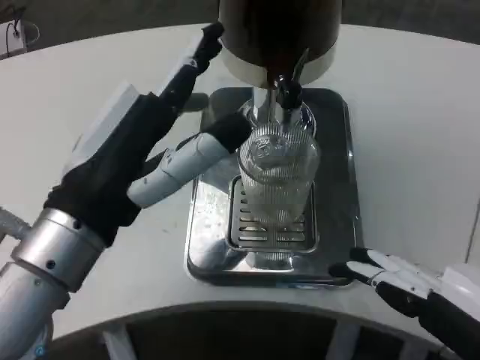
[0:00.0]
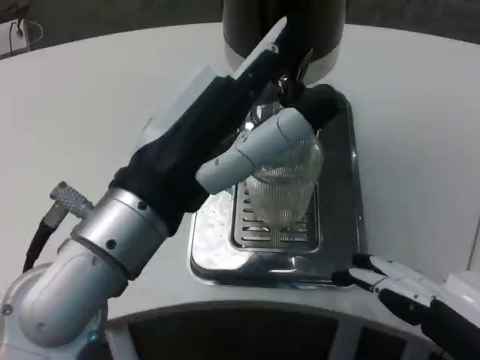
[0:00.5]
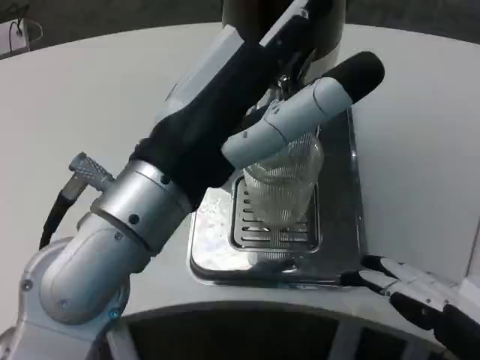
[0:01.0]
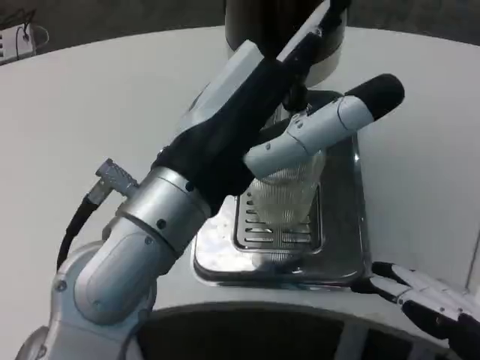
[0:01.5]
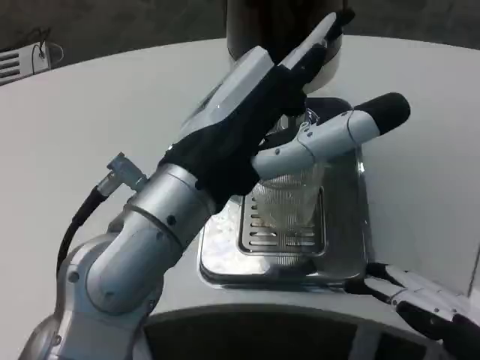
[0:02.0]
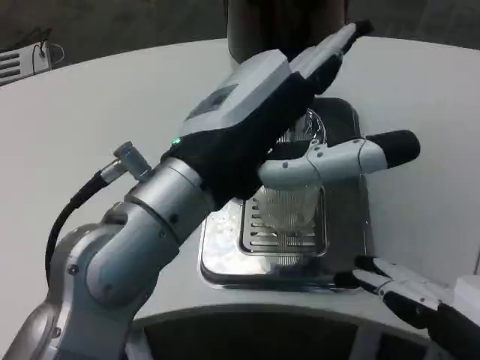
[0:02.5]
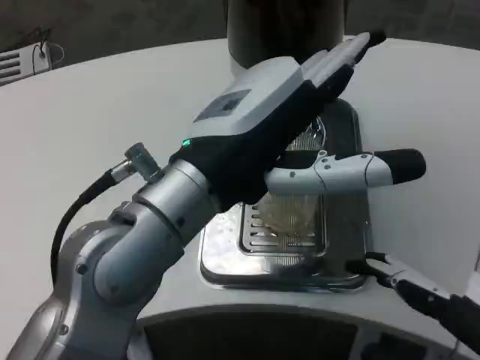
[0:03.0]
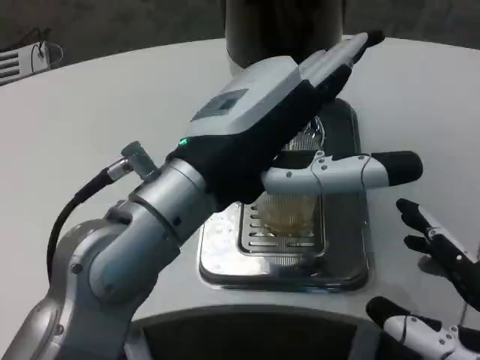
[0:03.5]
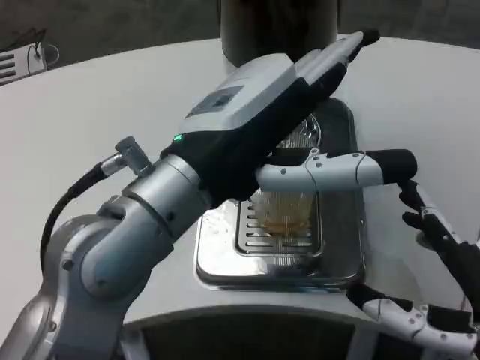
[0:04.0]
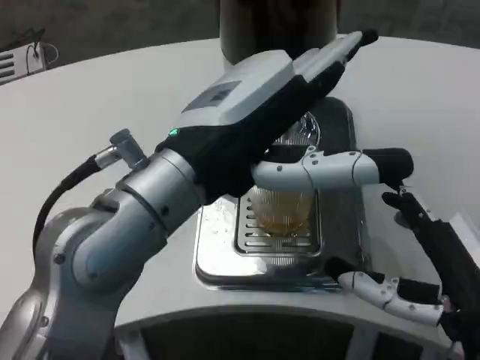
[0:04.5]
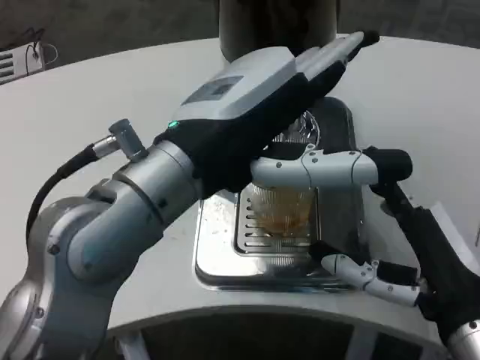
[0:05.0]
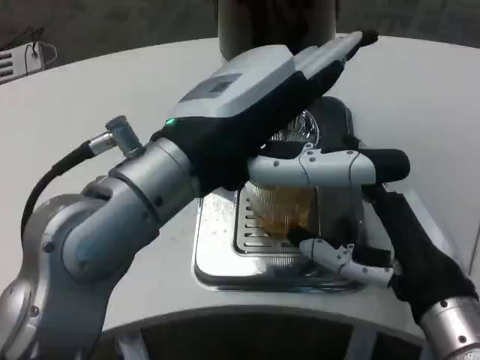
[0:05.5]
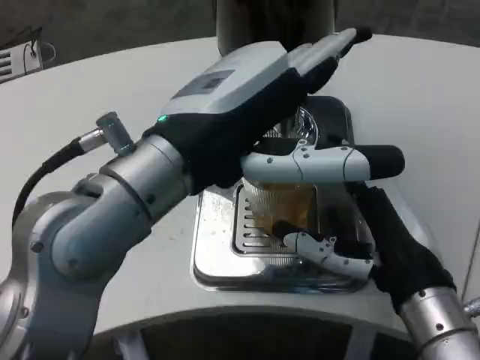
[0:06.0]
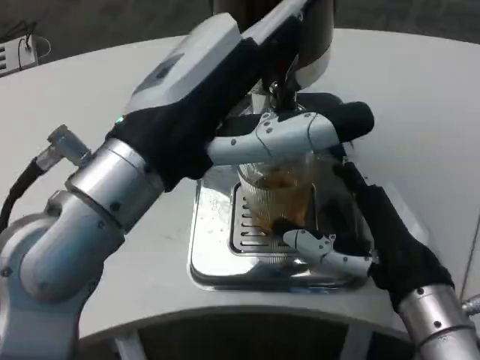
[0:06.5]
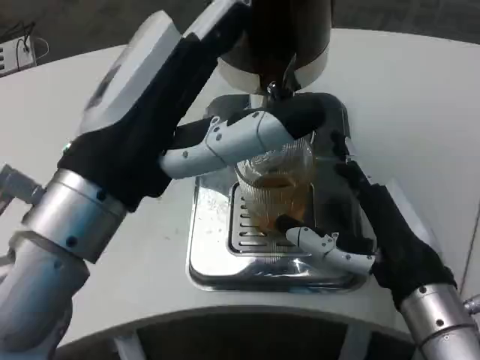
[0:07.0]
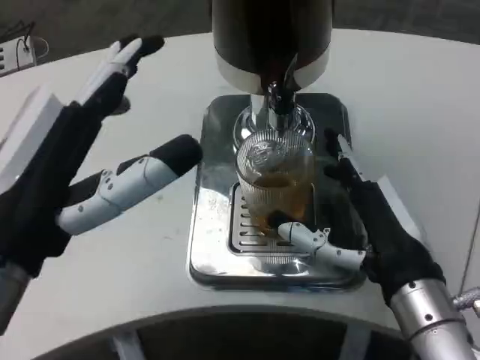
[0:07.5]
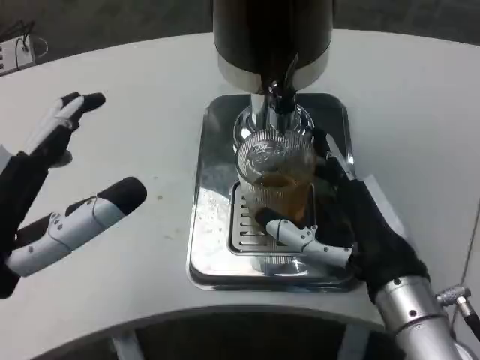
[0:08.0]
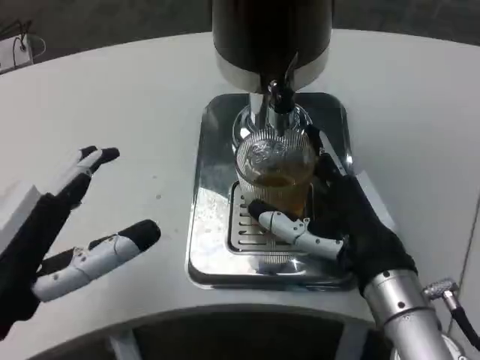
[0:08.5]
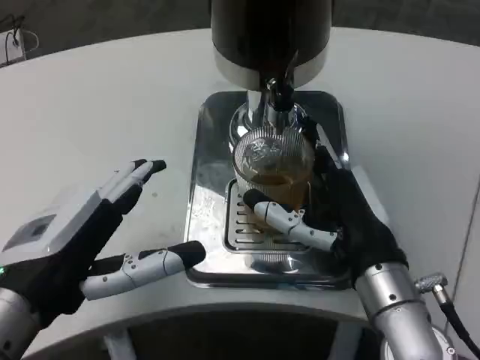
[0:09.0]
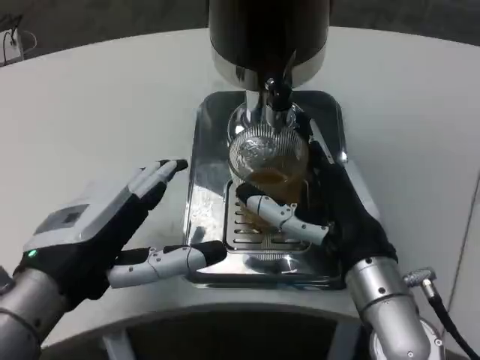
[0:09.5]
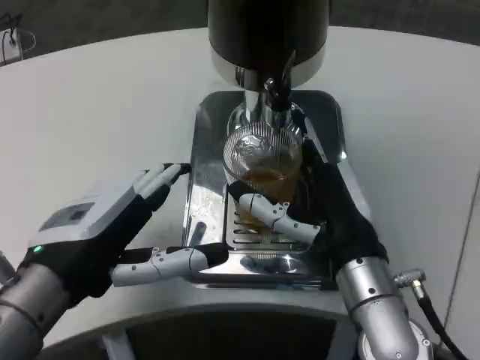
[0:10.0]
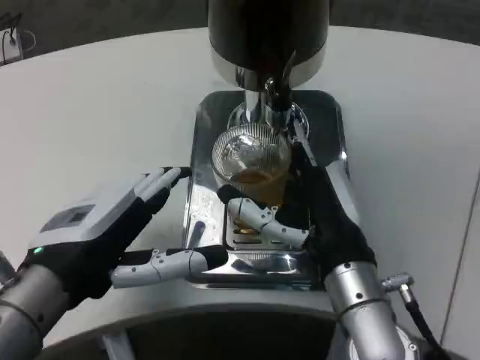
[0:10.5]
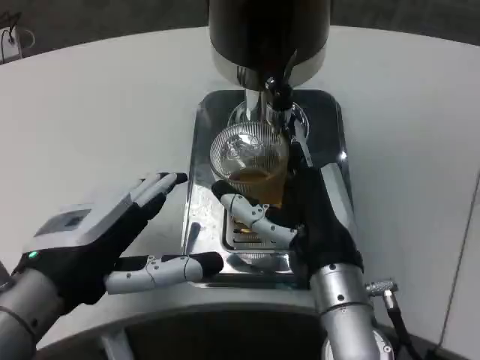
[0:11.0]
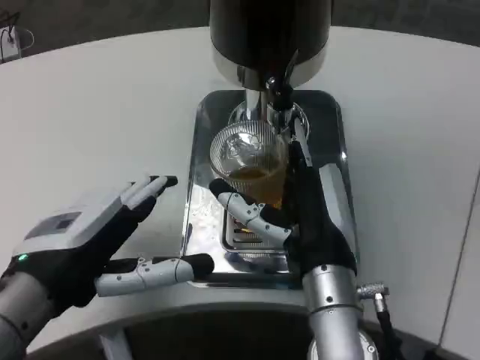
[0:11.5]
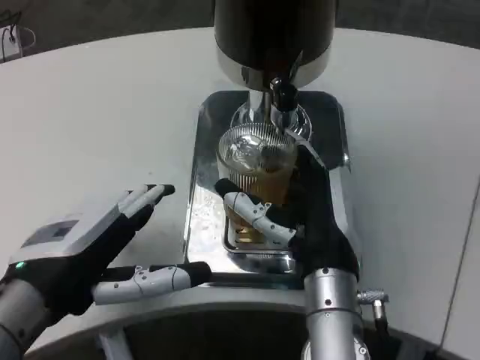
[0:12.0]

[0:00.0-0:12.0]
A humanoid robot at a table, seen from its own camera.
Task of the whole recording: Grasp the cup under the faucet to collect the drink, then remove the cup.
0:00.0 to 0:02.0: The left hand shifts some 5 cm to the right.
0:02.0 to 0:04.0: The right hand shifts some 10 cm forward and downward.
0:04.0 to 0:06.0: The right hand goes approximately 10 cm forward and to the left.
0:06.0 to 0:08.0: The left hand travels to the left, downward and backward by some 15 cm.
0:08.0 to 0:10.0: The left hand shifts about 5 cm forward.

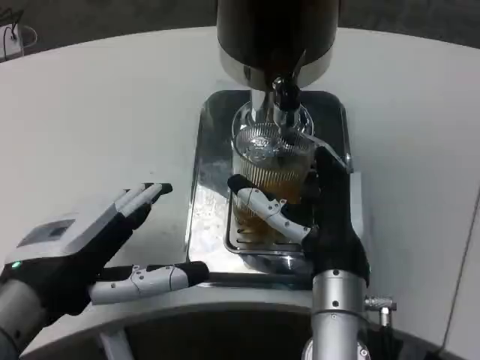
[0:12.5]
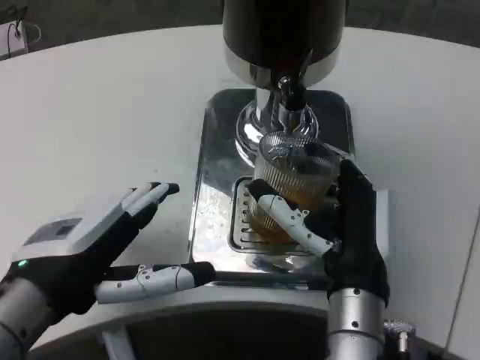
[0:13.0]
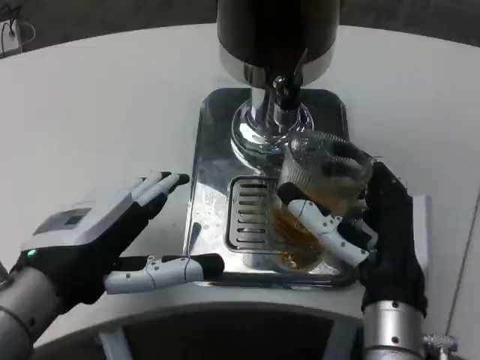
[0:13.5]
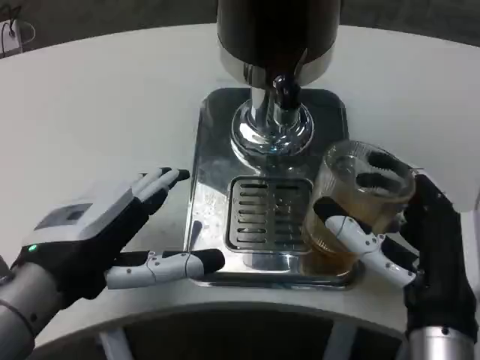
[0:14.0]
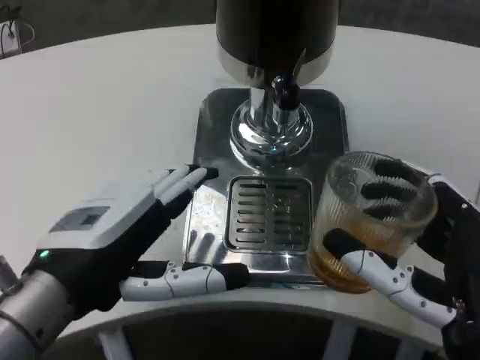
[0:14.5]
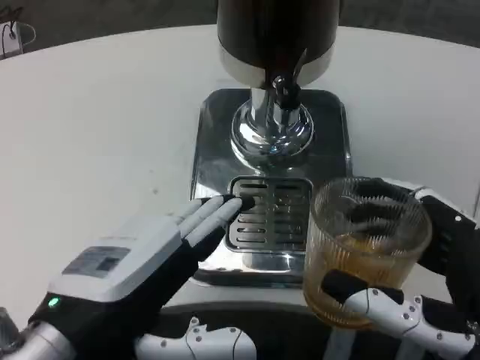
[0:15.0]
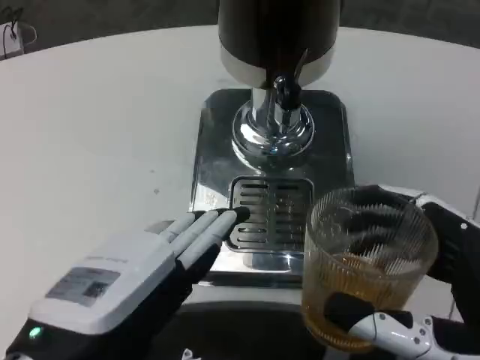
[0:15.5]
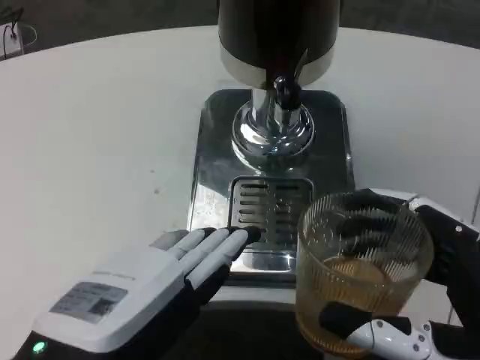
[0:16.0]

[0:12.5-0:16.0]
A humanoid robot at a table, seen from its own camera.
Task of the whole recording: Grasp the cup under the faucet to collect the drink, then remove the cup.
0:12.5 to 0:14.5: The right hand is displaced backward and to the right by approximately 15 cm.
0:14.5 to 0:16.0: The left hand goes some 10 cm backward, while the right hand ends up some 5 cm from where it was.

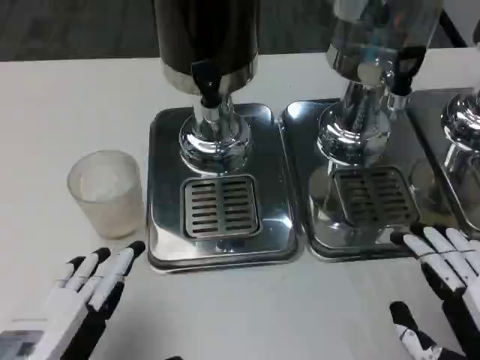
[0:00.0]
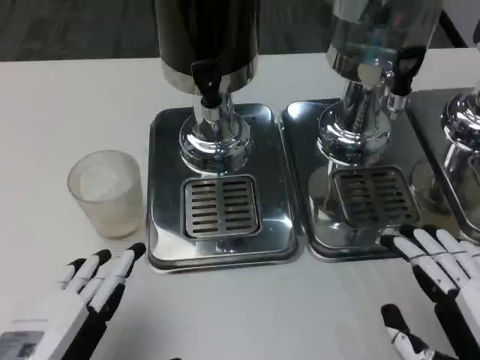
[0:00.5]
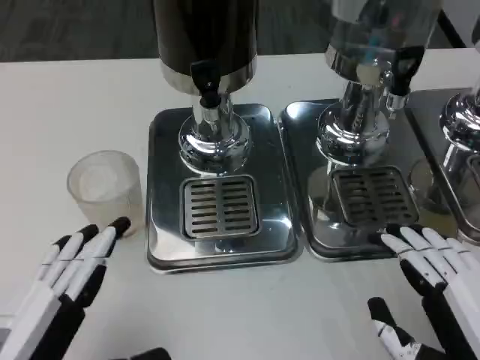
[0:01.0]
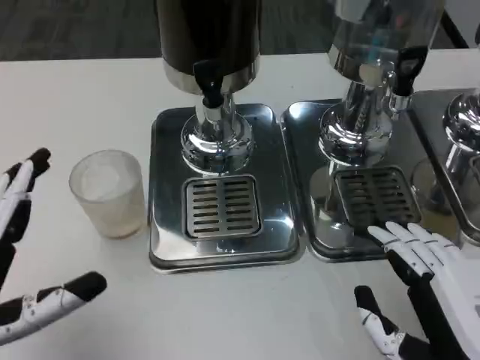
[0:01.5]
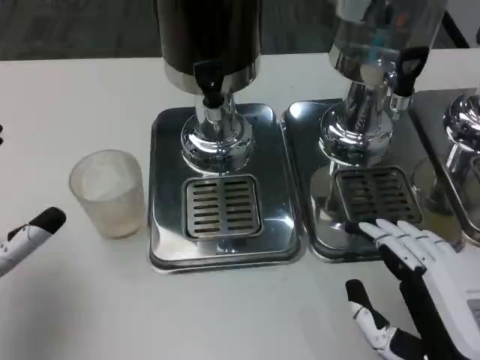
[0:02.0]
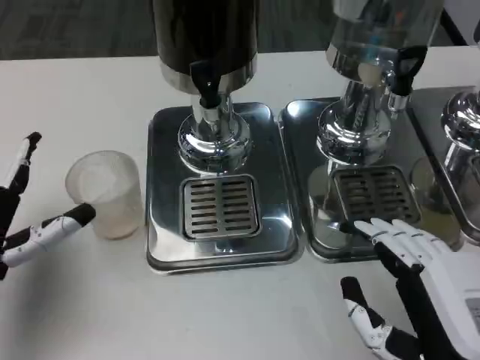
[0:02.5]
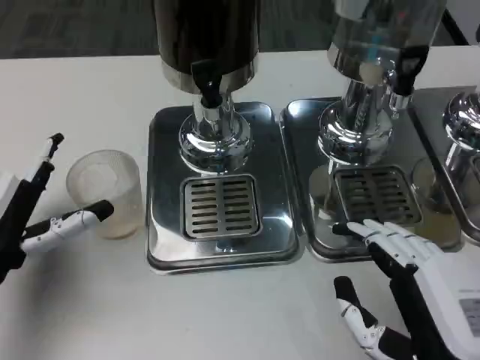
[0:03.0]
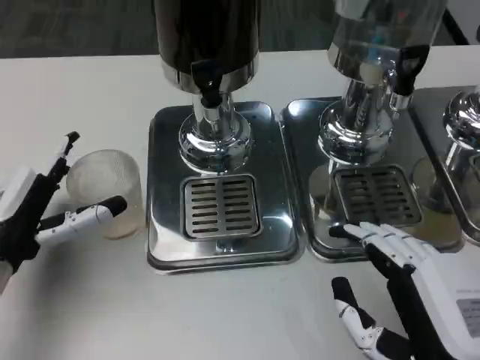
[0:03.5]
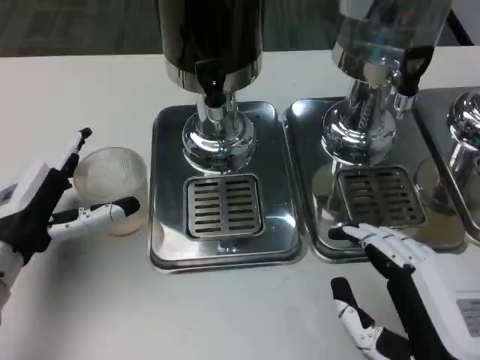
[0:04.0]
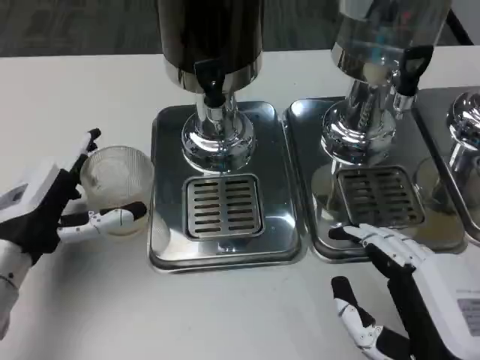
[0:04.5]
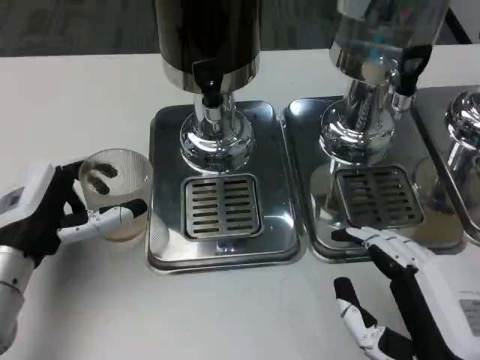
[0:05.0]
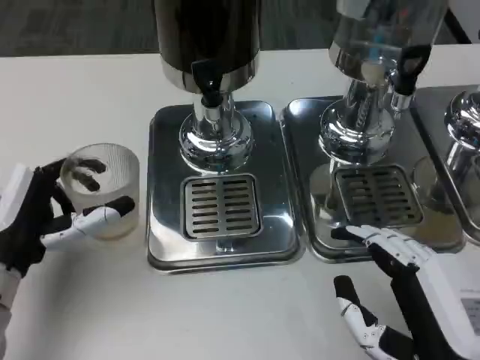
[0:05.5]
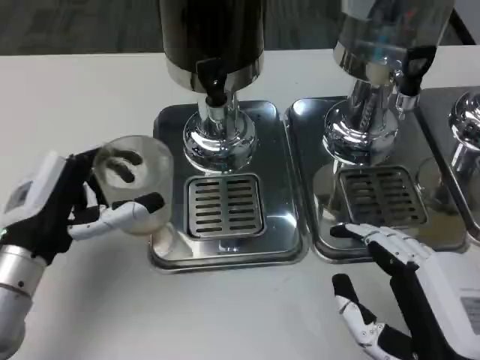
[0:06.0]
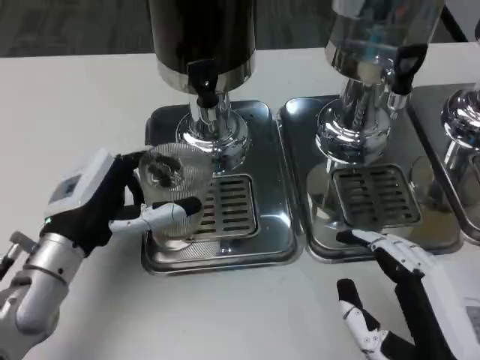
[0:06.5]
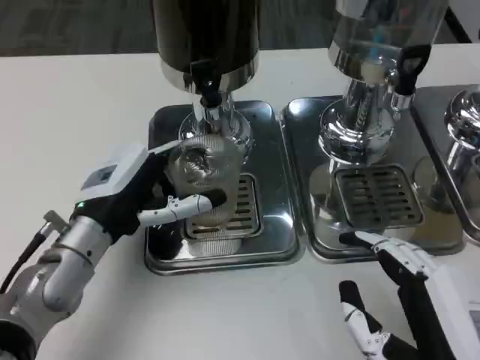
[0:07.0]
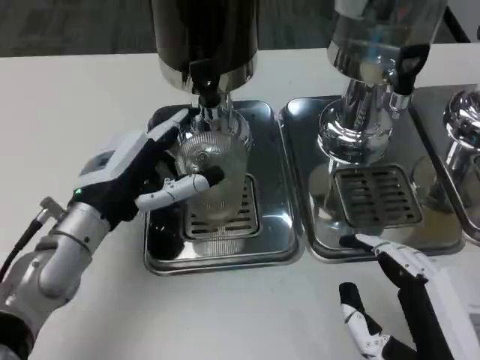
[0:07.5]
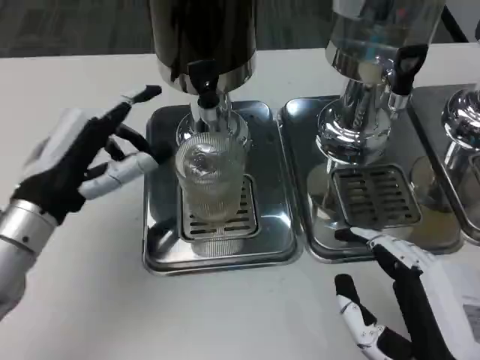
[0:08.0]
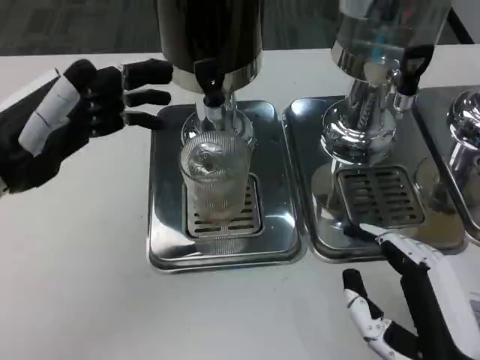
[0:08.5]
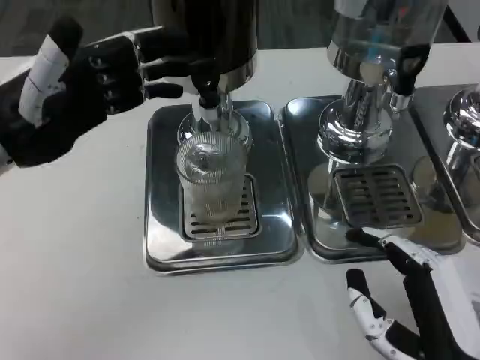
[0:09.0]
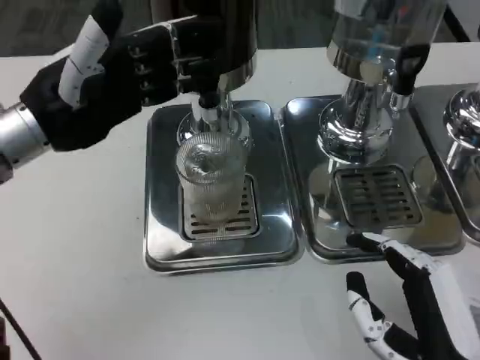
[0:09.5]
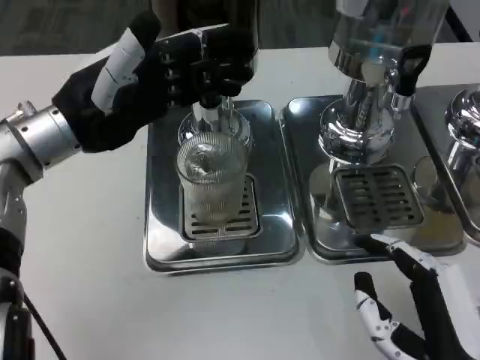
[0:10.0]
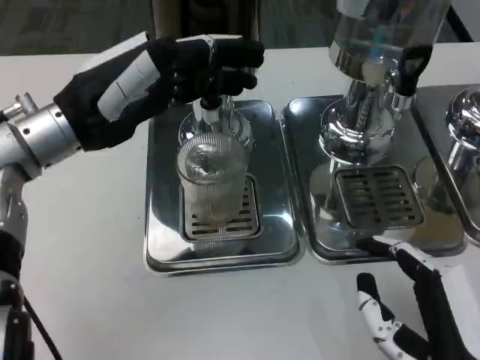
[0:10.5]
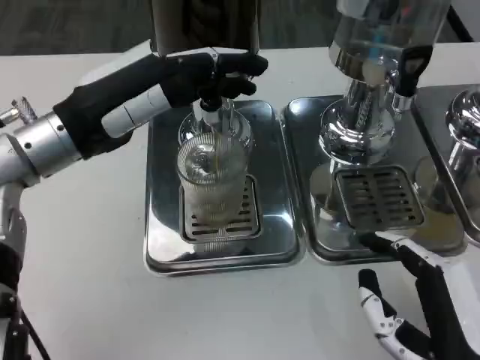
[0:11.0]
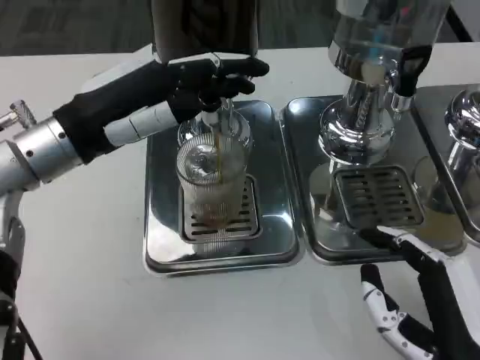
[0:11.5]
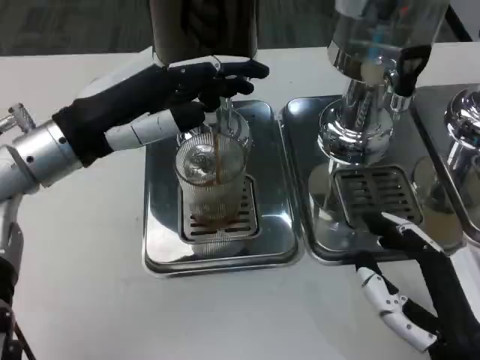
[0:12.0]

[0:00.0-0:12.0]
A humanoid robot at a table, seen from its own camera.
Task of the whole recording: Grasp the cup under the faucet to collect the drink, then remove the cup.
0:00.0 to 0:02.0: The left hand travels forward and to the left by about 10 cm.
0:02.0 to 0:04.0: The left hand travels forward by roughly 10 cm.
0:08.0 to 0:10.0: The left hand heads upward and forward, covering roughly 10 cm.
